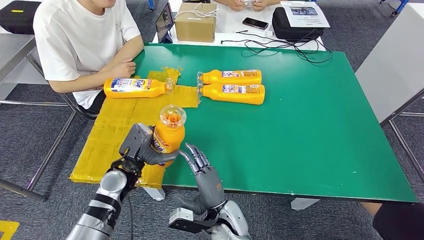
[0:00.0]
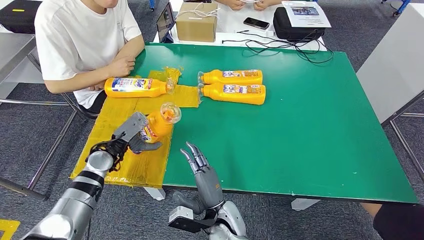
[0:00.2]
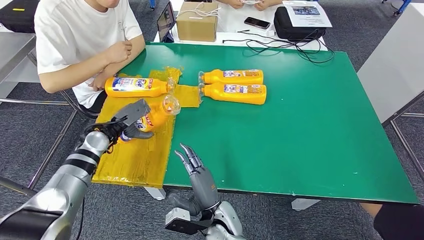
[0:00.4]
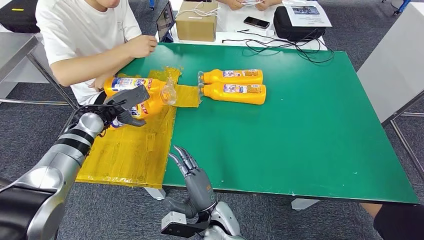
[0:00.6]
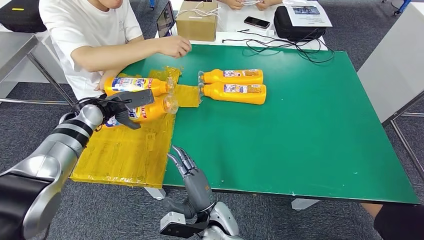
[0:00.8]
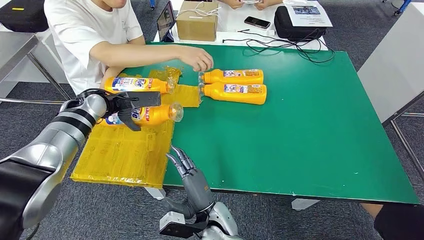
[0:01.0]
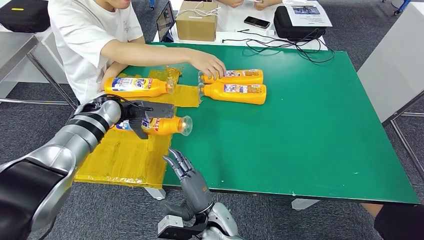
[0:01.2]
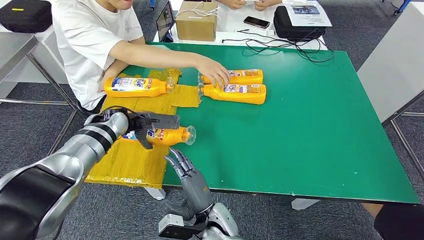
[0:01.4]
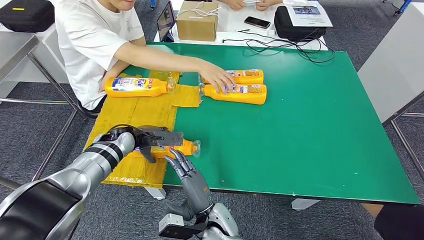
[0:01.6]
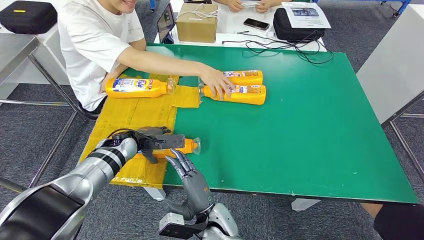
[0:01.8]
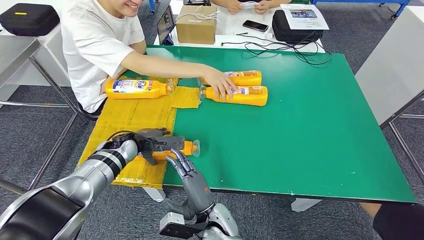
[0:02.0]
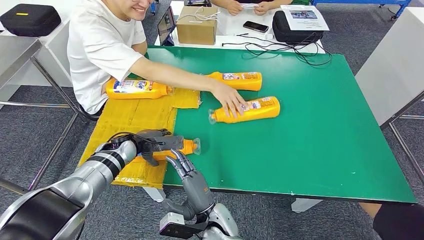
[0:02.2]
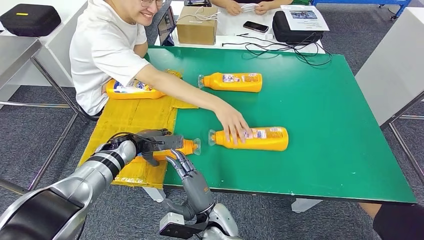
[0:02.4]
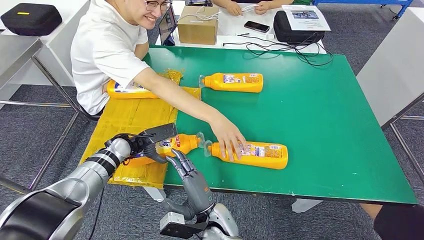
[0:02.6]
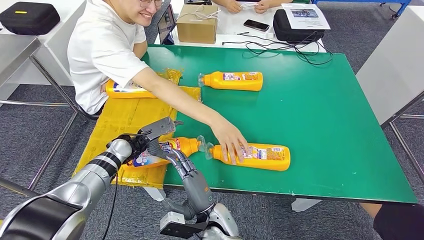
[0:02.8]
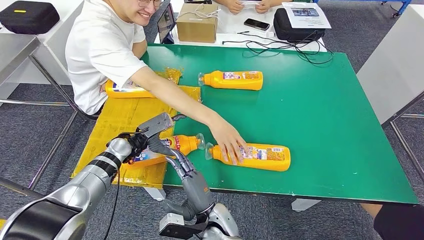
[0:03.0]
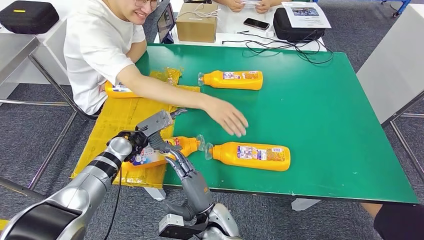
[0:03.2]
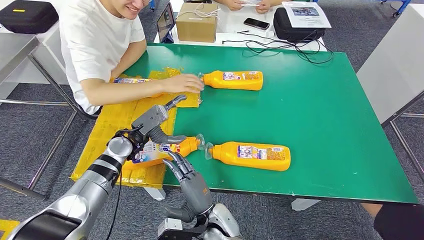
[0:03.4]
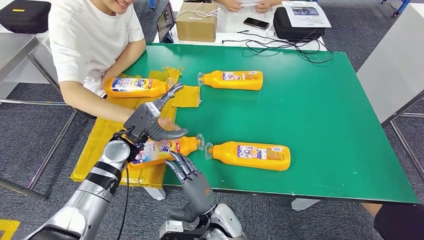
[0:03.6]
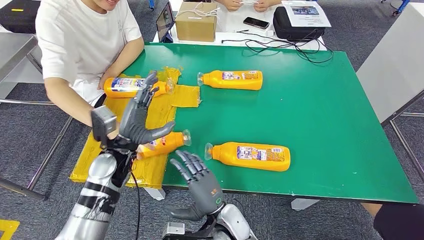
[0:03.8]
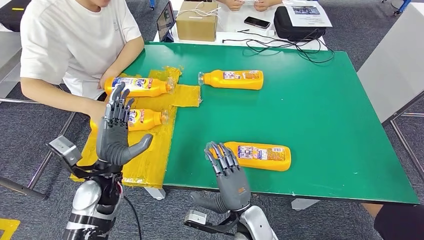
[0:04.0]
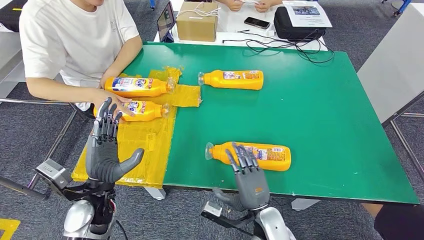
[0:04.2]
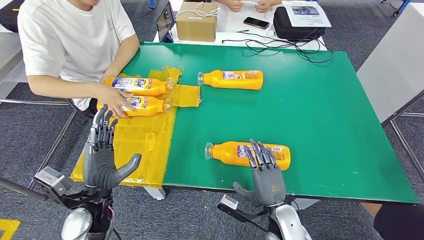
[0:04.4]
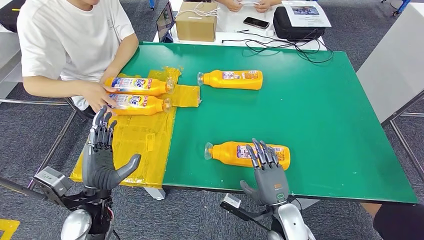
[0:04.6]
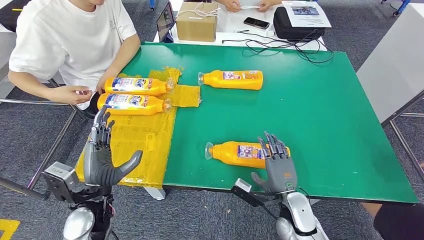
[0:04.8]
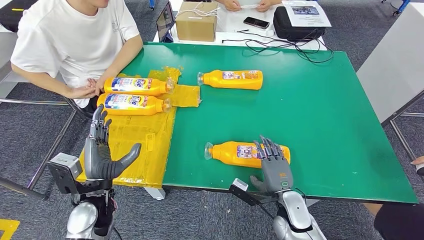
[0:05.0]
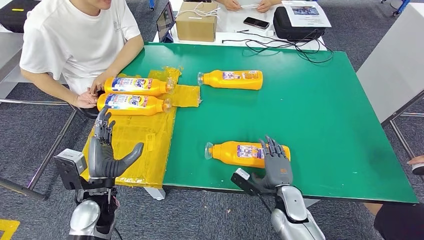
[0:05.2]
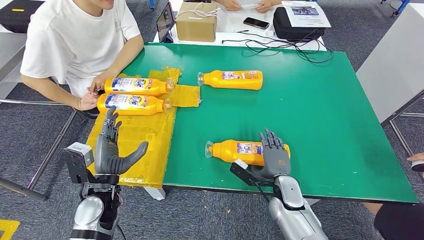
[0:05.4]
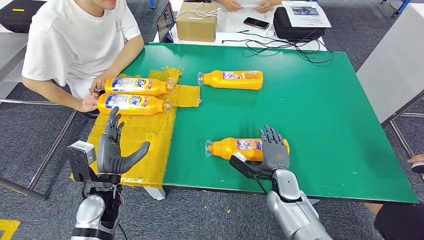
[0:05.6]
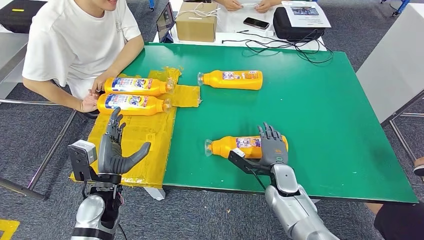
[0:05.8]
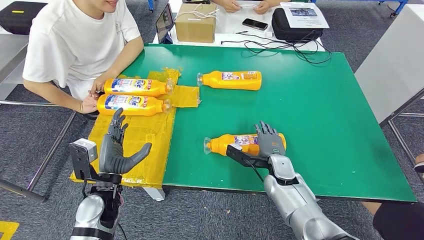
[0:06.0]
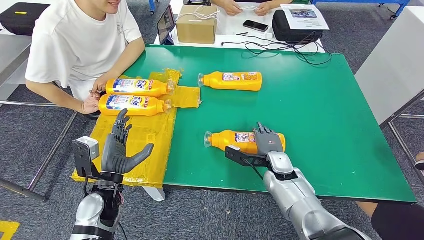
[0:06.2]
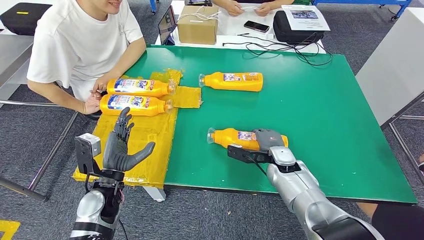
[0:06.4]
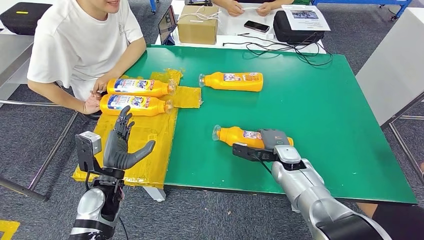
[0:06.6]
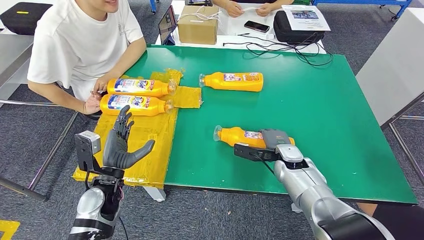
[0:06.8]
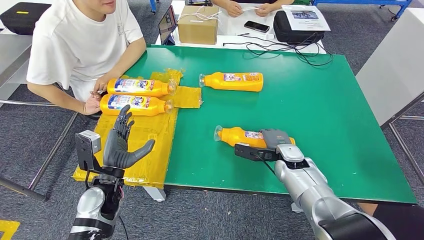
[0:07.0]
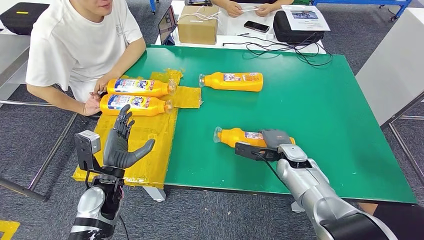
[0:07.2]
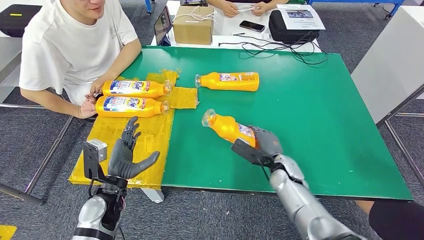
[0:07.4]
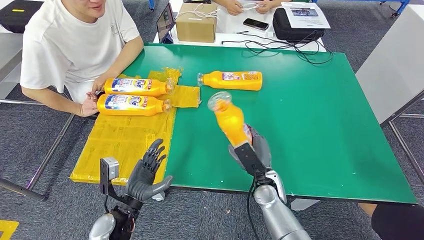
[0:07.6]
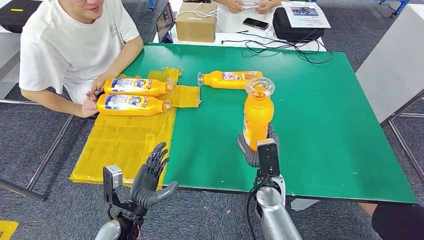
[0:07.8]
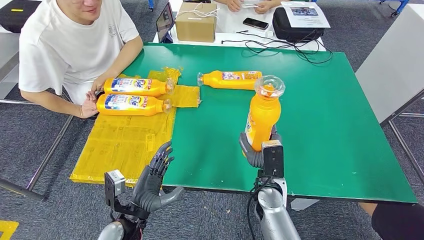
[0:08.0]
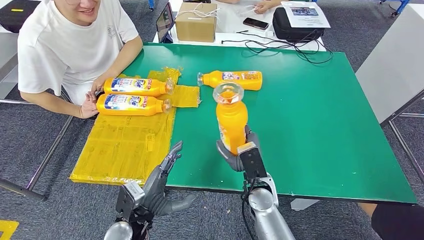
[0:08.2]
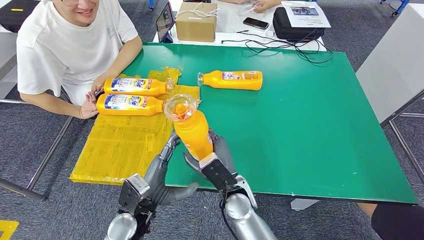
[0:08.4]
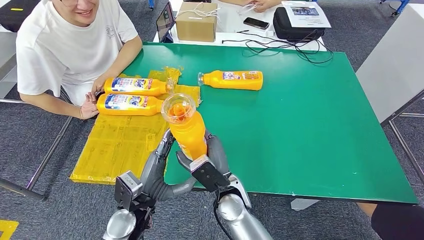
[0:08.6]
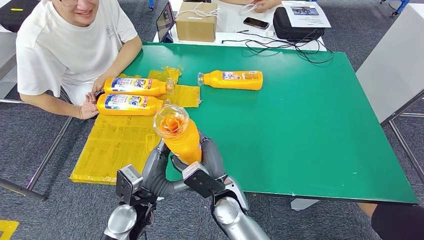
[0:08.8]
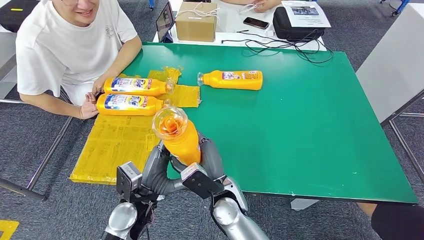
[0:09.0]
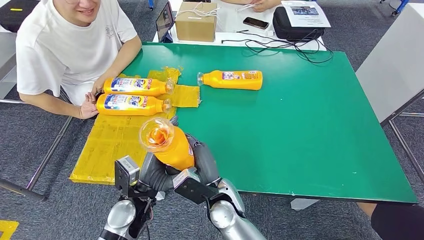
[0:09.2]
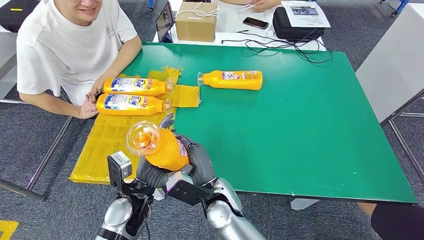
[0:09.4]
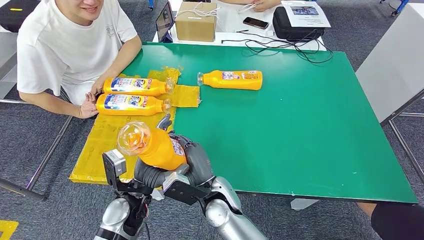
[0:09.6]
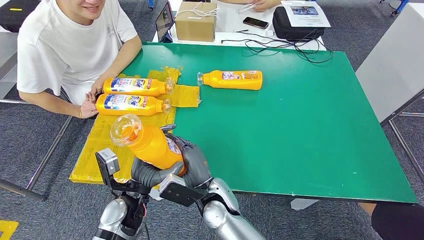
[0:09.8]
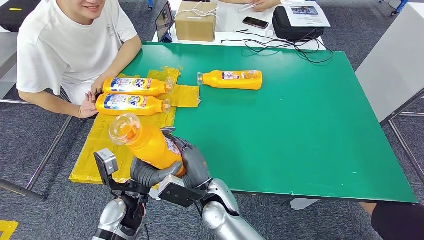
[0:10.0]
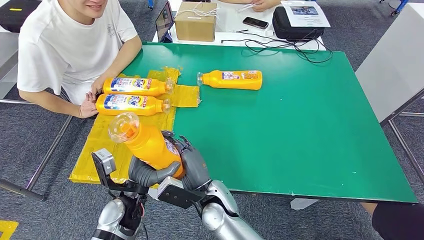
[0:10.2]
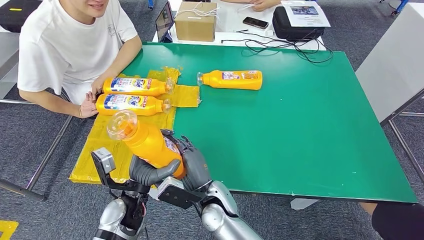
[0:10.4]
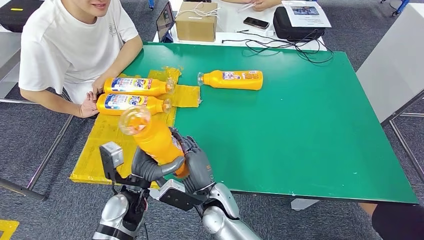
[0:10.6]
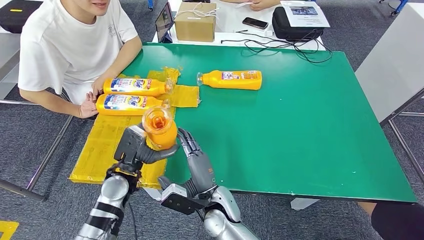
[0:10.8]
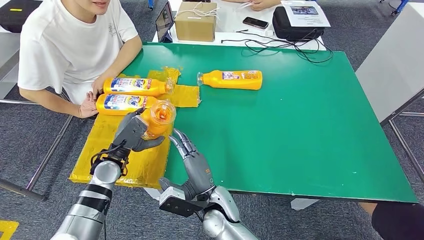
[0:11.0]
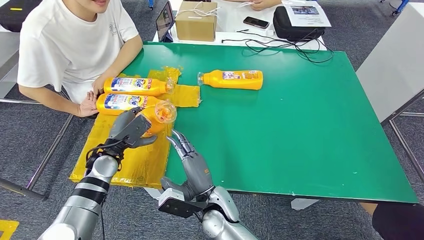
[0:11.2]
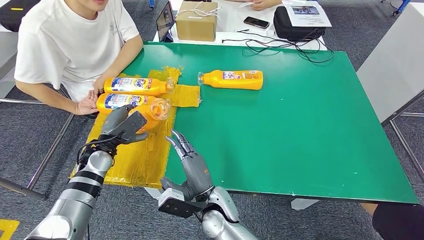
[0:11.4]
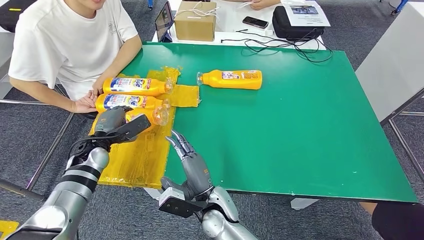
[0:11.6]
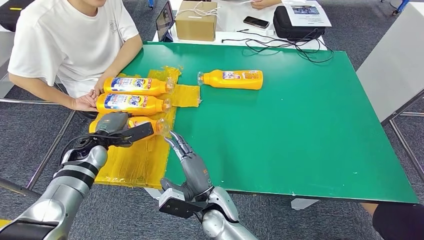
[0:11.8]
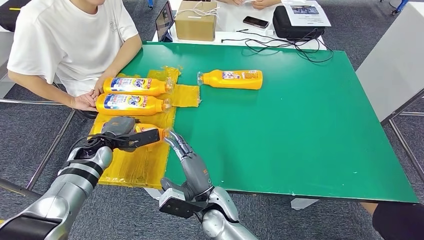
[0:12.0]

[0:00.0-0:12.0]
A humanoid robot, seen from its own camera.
Step, 0.0 to 2.6 s: Flip the fast-moving consumer goods bottle to the front side.
Step, 2.8 to 9.2 s: Pick up the fast-moving consumer goods bottle from the table.
7.6 to 9.0 s: The left hand heads to the right, covering about 5 cm, while the right hand shifts some 15 cm to the left, upward and backward.
10.4 to 12.0 s: The left hand shifts about 20 cm to the left and forward.

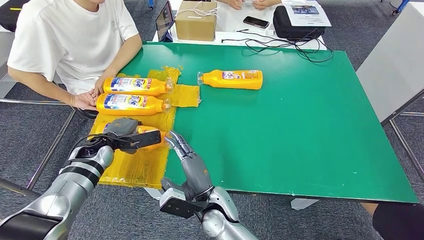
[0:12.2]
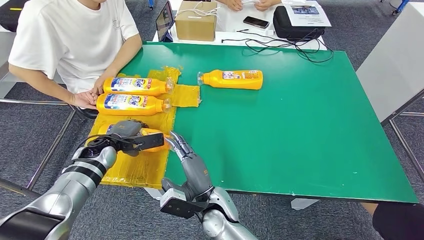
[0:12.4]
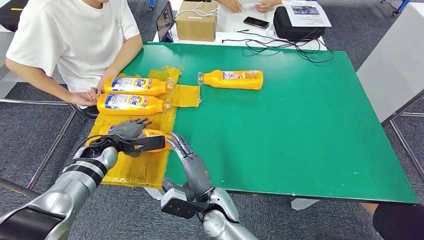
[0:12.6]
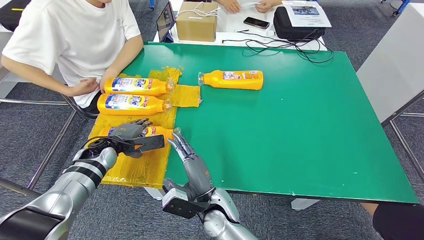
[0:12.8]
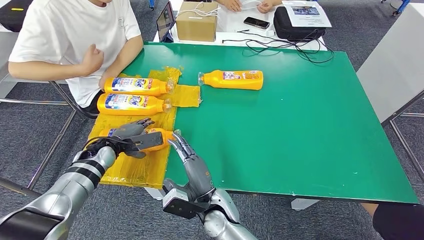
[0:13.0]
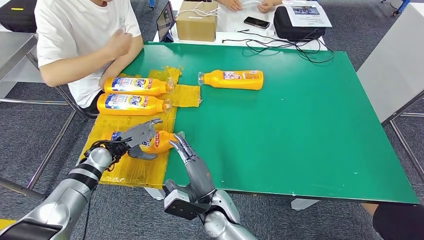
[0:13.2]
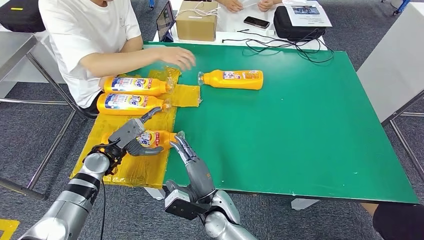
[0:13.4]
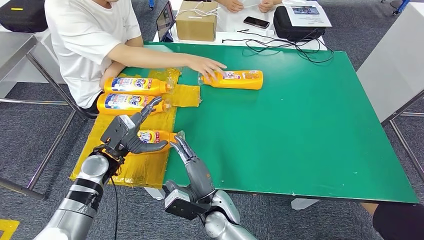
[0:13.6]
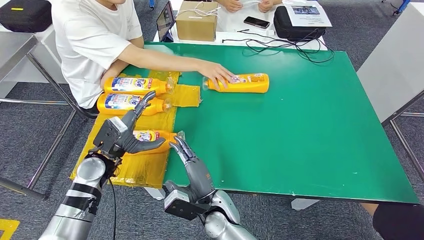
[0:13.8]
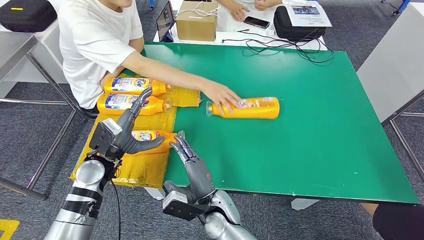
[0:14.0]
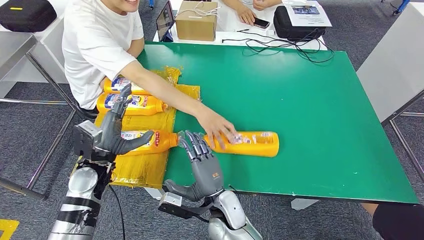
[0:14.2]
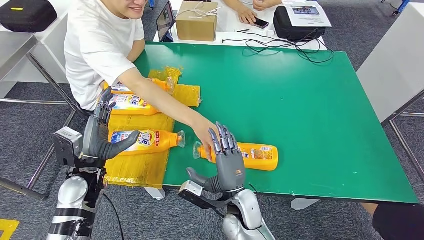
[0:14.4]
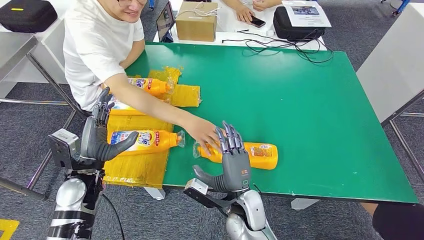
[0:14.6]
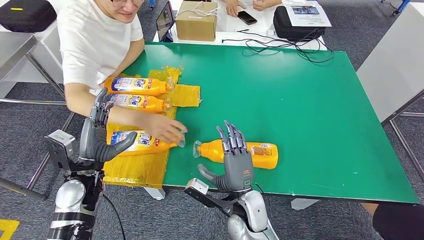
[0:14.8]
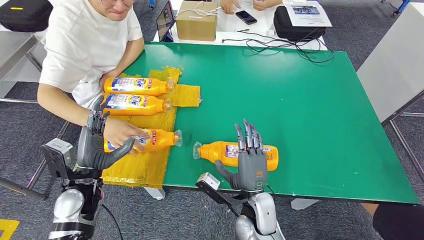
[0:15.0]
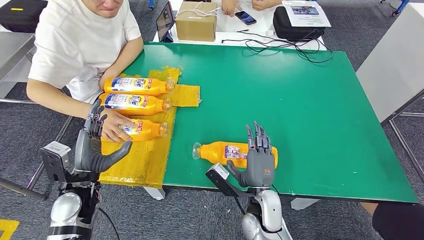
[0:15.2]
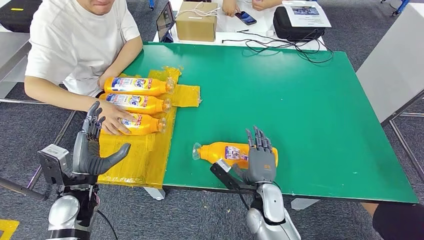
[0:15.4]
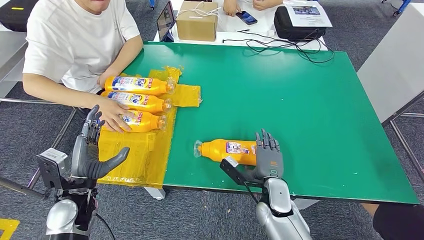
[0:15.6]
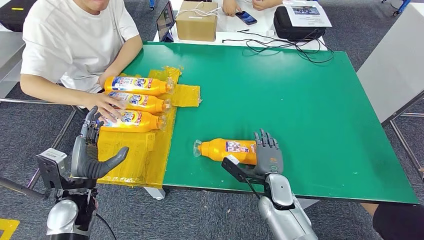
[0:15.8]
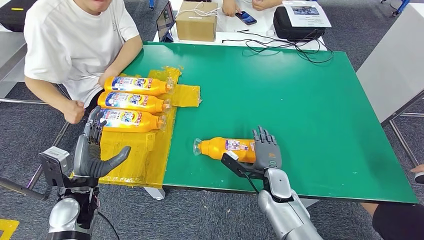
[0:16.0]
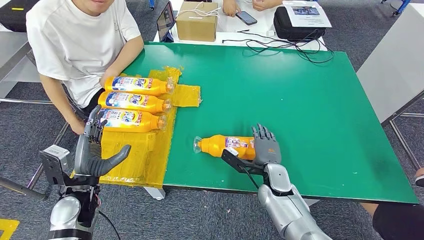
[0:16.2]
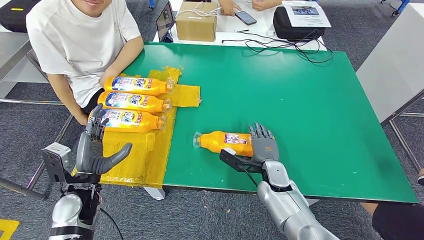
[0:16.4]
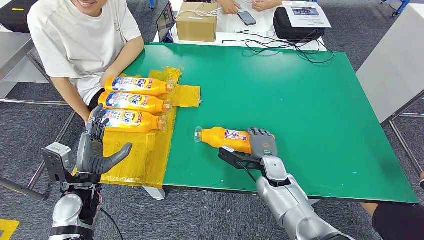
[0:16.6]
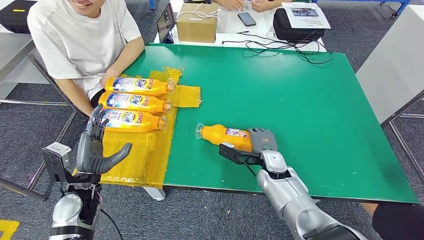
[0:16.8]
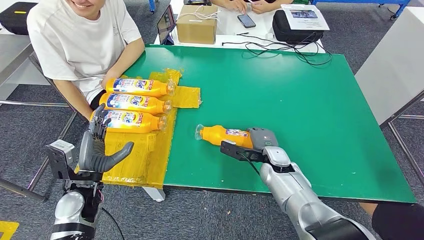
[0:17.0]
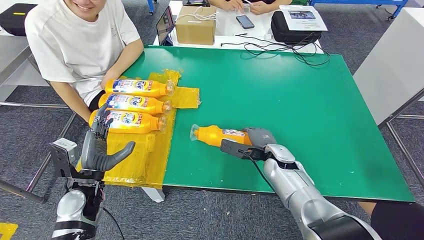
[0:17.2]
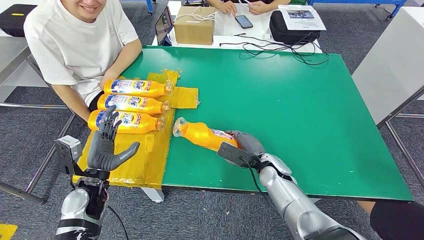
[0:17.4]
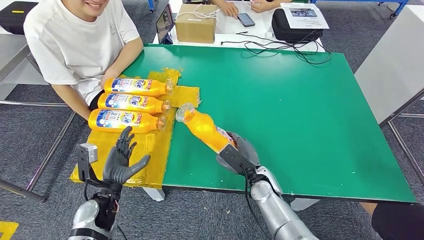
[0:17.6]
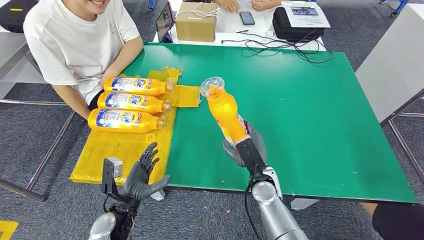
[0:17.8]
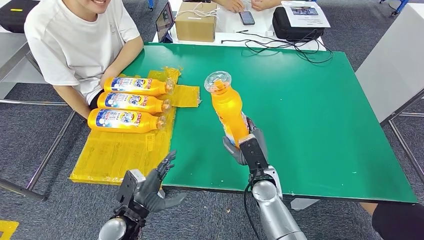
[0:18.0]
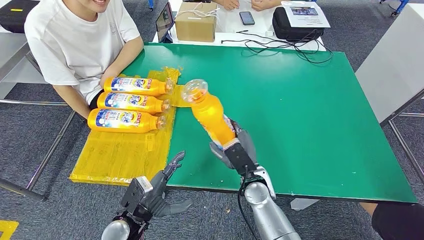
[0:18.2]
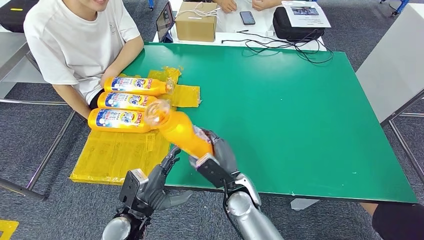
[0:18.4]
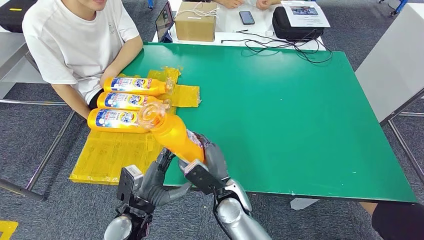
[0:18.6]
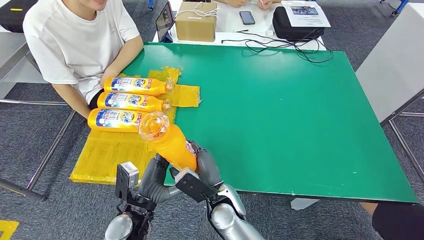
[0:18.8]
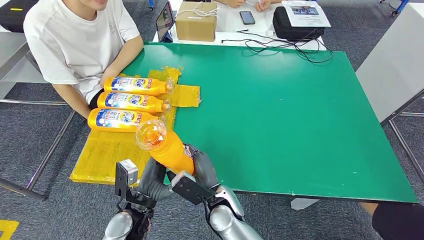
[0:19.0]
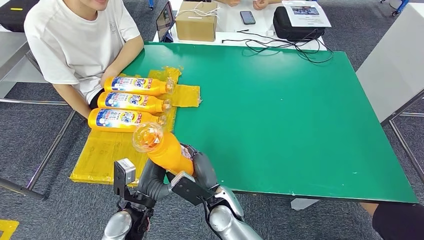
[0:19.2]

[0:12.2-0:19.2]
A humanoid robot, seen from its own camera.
16.4 to 17.8 s: The left hand goes about 10 cm downward and to the right.
17.8 to 19.2 s: The left hand is displaced to the right by some 5 cm; the right hand heads to the left and backward, covering some 15 cm.
